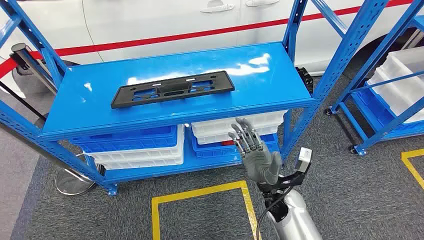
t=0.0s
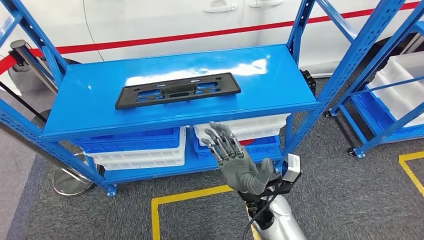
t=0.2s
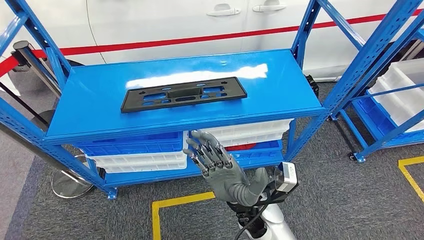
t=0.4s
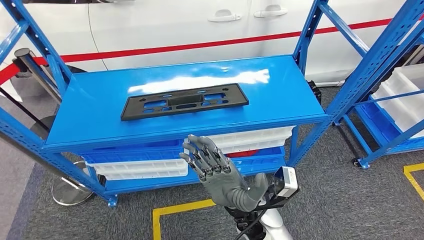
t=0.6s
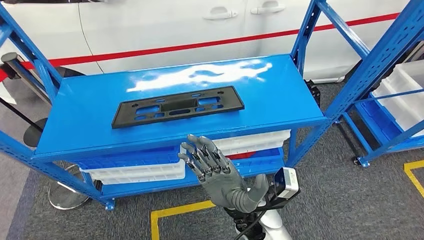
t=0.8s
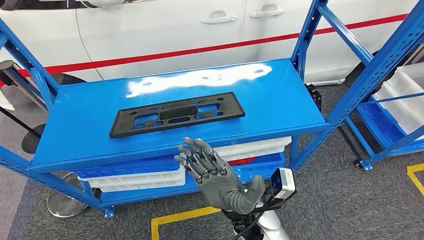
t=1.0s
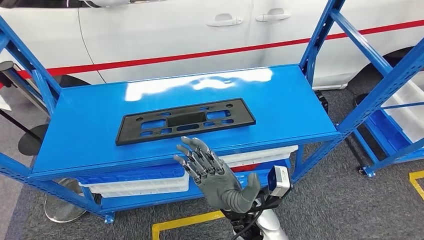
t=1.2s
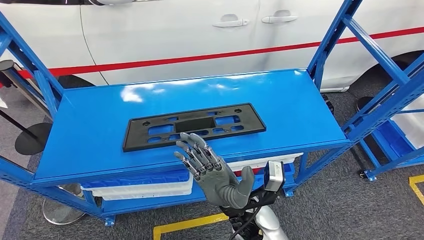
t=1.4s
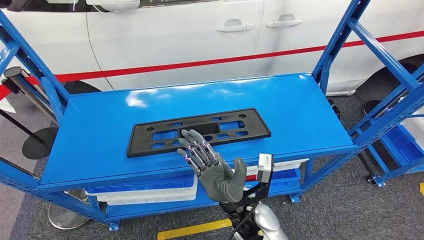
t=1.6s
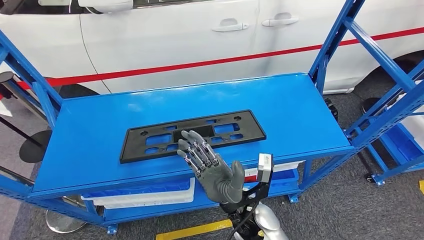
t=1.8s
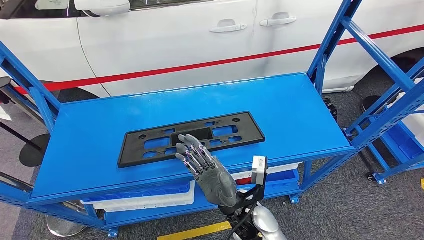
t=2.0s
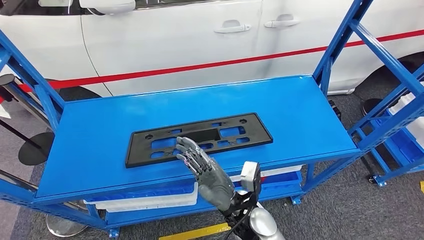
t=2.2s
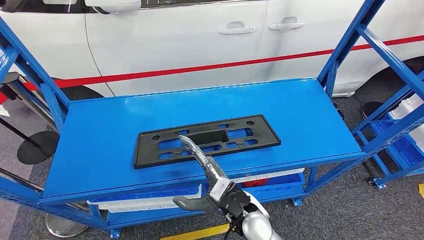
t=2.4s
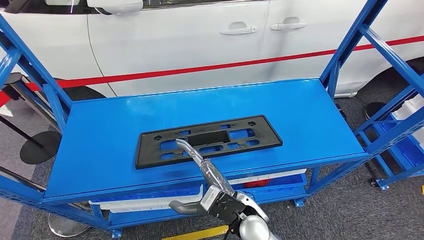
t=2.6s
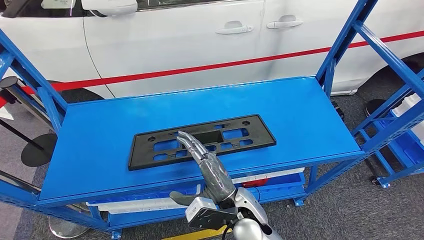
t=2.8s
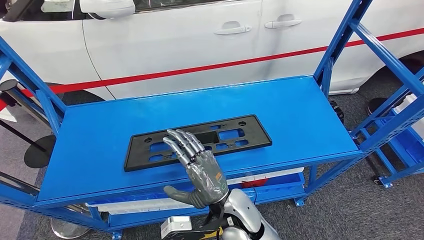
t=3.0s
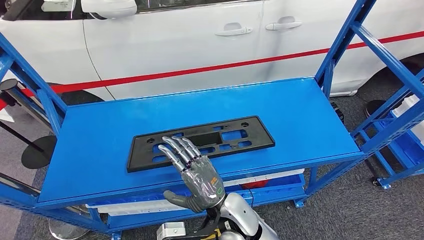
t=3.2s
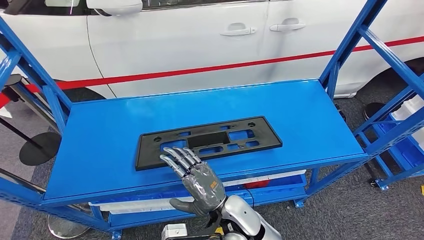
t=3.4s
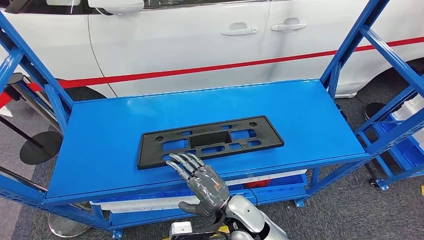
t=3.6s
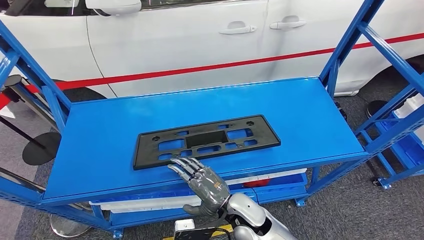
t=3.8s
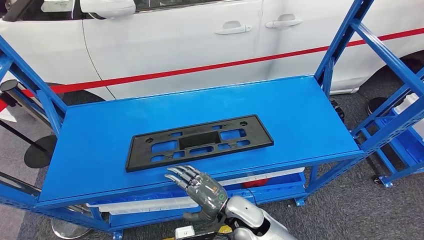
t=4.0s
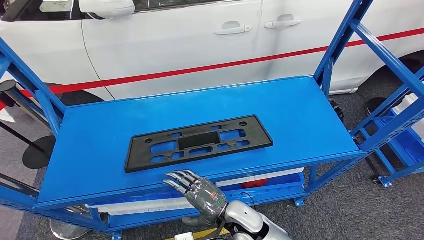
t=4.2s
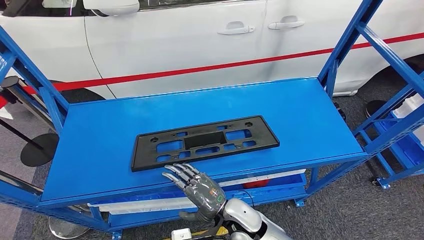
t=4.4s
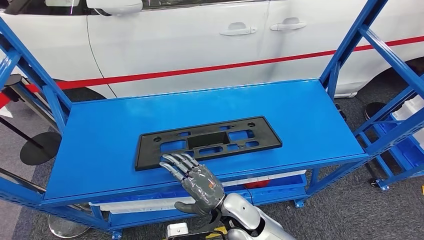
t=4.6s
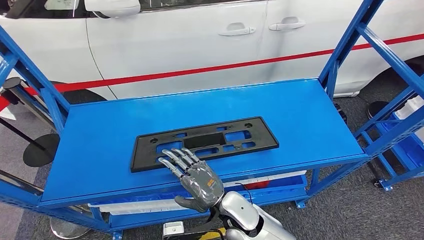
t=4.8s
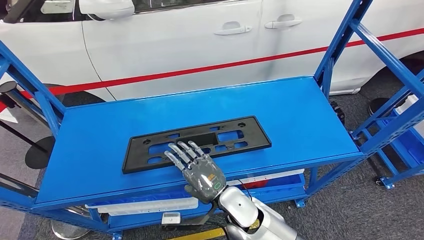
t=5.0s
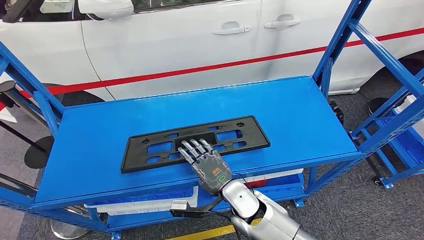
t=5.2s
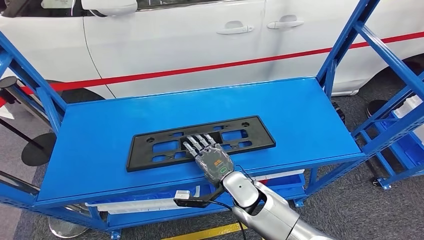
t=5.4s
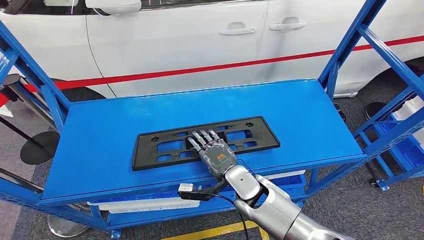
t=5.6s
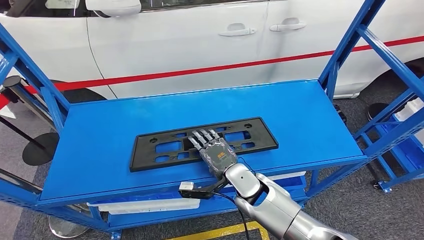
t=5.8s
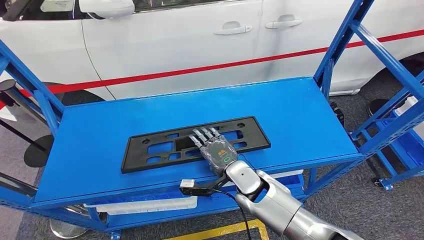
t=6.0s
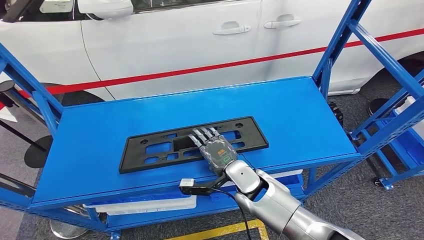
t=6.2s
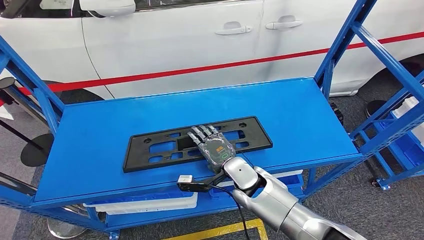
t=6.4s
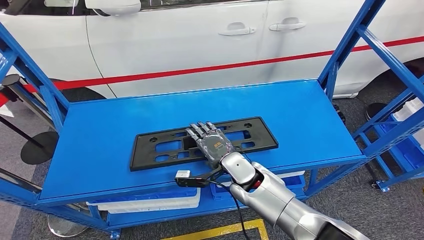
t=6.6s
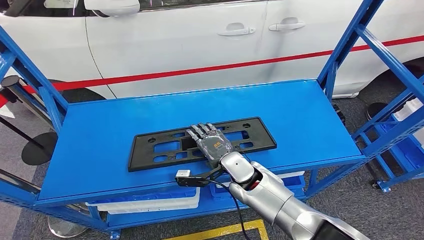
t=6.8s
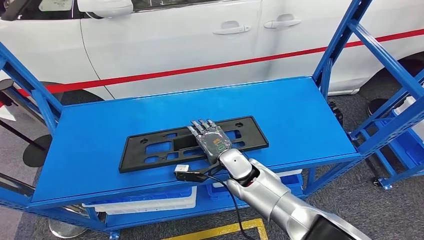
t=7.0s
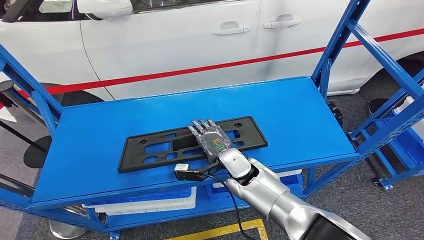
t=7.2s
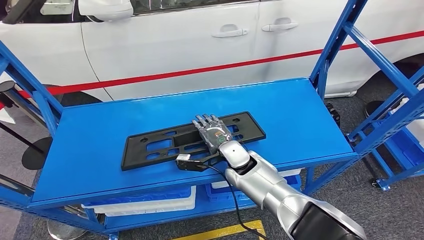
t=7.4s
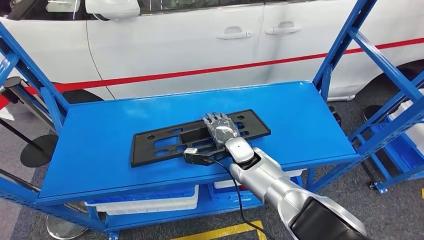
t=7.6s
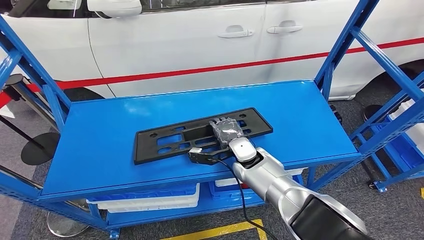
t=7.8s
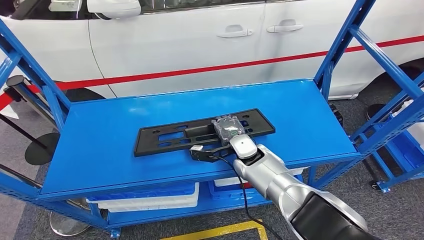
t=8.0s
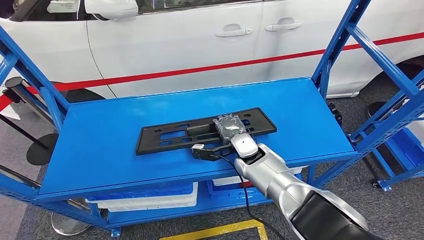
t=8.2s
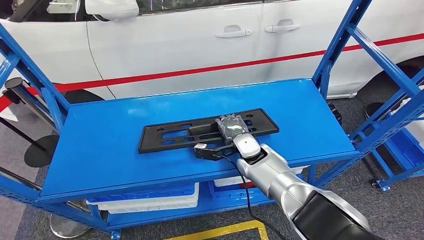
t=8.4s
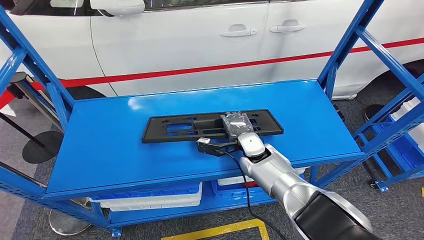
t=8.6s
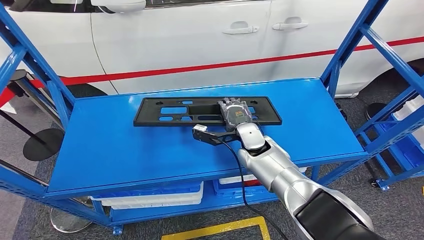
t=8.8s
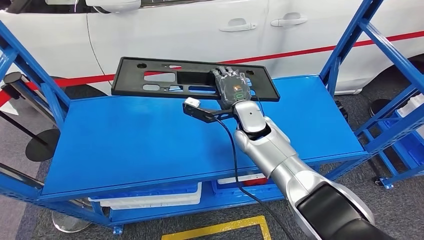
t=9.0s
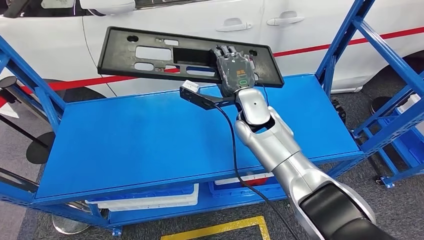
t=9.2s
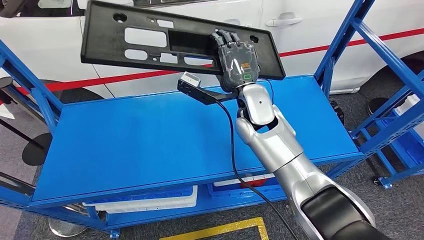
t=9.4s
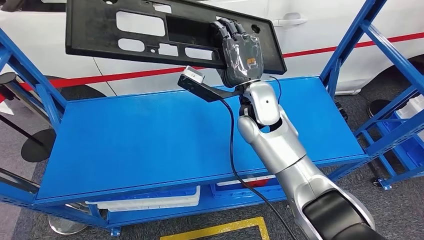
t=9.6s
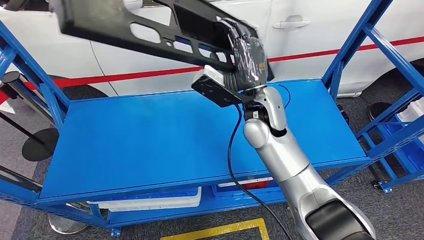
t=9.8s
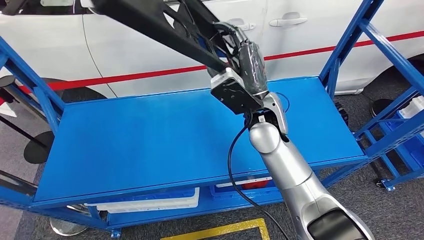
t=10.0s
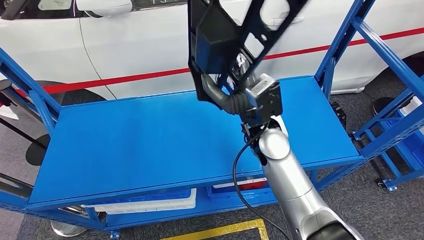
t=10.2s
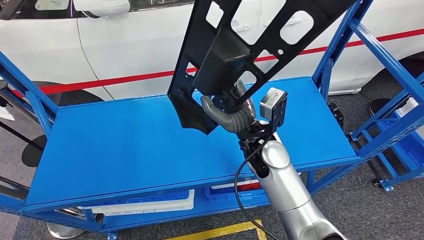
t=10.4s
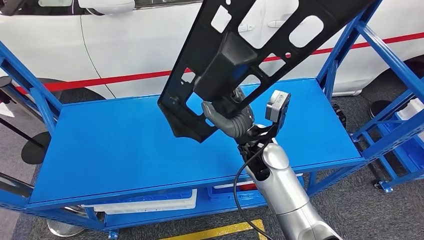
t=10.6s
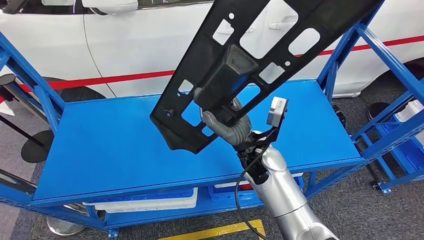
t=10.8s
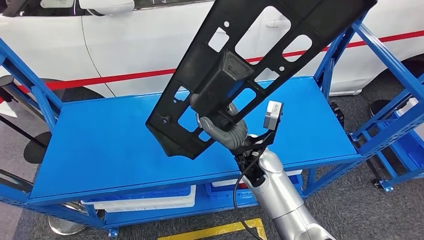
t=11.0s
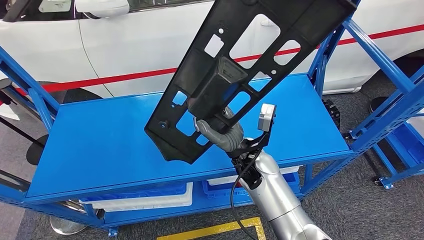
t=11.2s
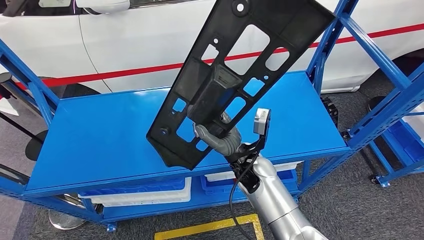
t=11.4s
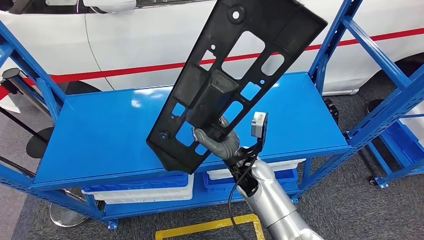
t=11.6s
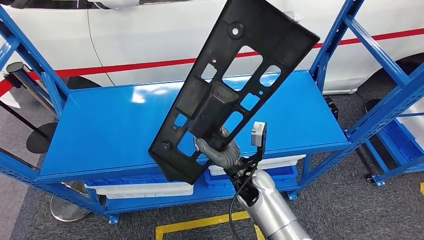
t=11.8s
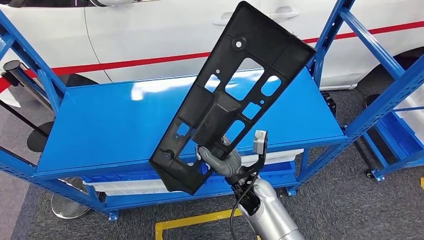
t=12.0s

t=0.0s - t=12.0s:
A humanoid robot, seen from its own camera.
Step, t=0.0s - t=10.0s: Pick up the large material from the shelf.

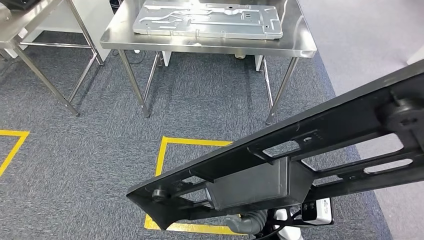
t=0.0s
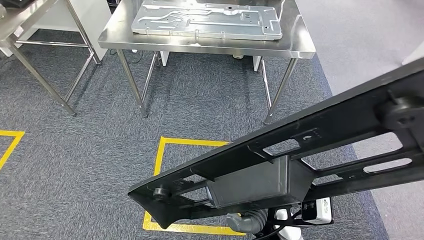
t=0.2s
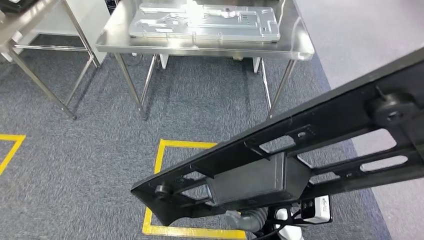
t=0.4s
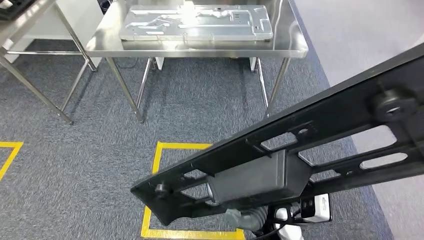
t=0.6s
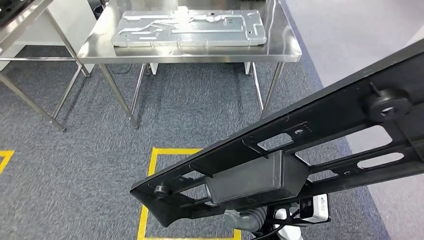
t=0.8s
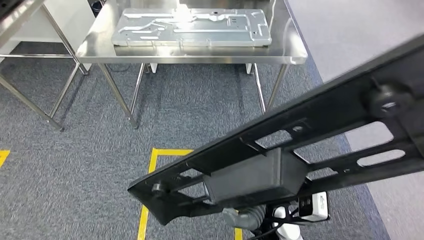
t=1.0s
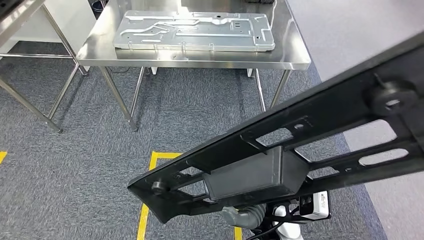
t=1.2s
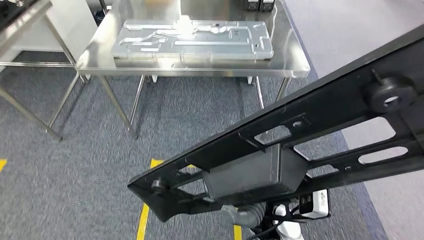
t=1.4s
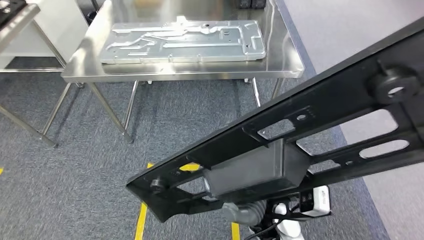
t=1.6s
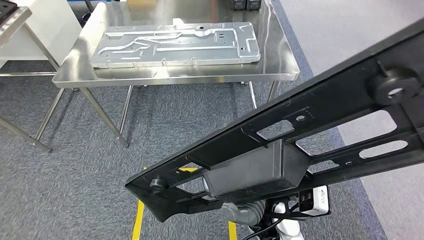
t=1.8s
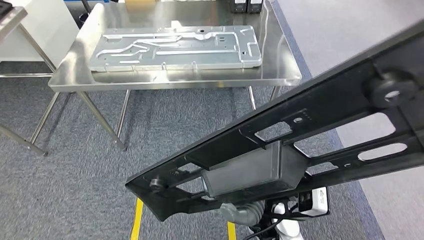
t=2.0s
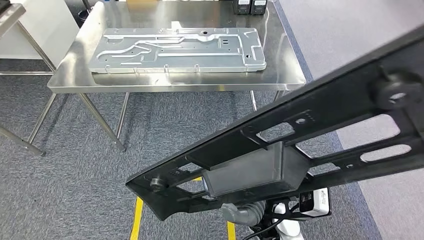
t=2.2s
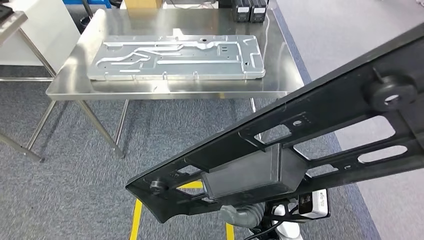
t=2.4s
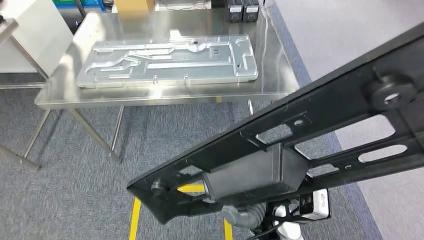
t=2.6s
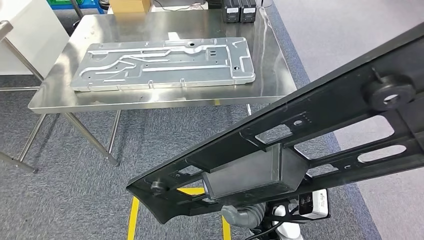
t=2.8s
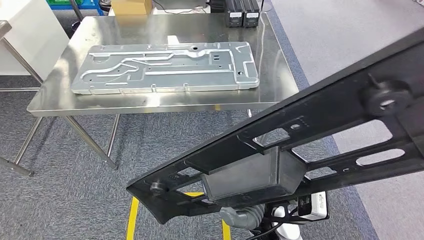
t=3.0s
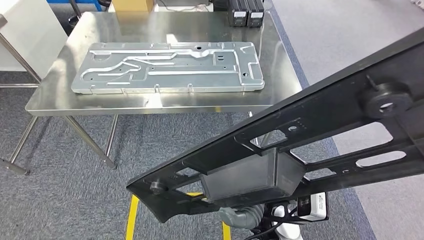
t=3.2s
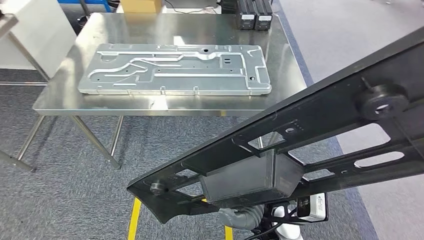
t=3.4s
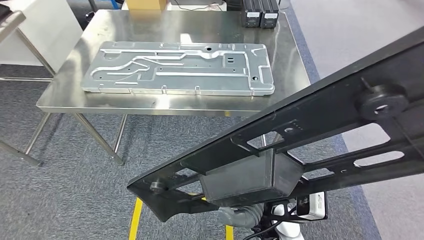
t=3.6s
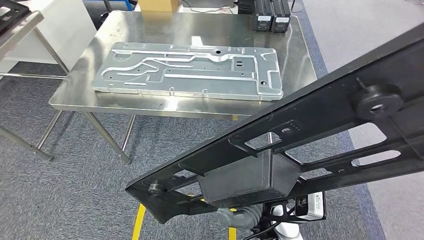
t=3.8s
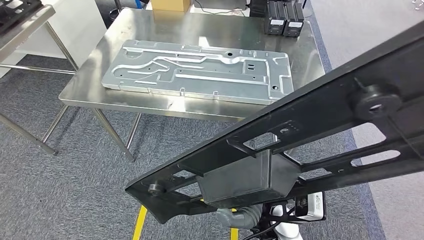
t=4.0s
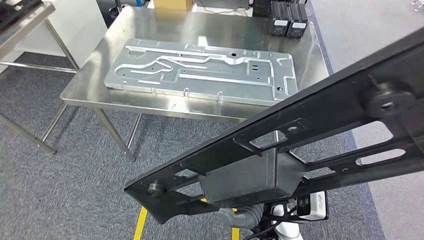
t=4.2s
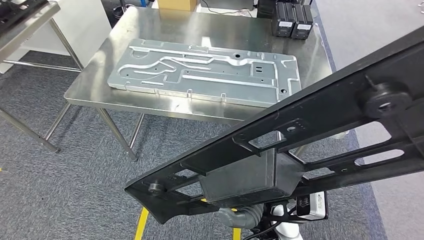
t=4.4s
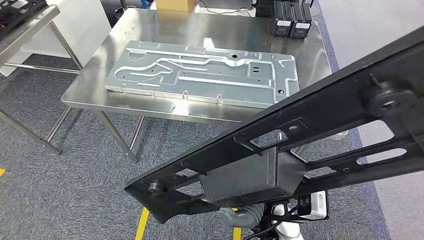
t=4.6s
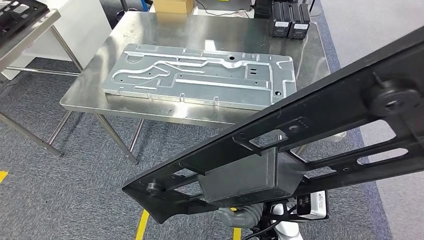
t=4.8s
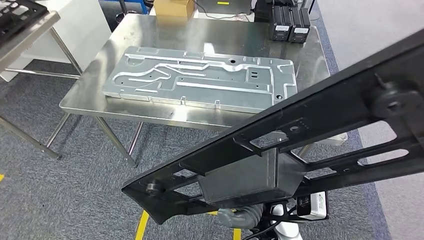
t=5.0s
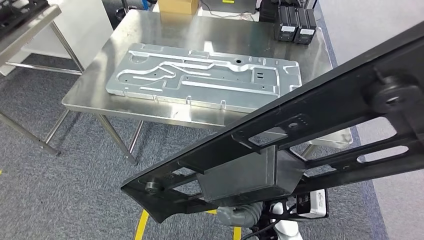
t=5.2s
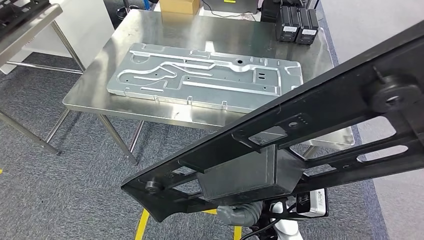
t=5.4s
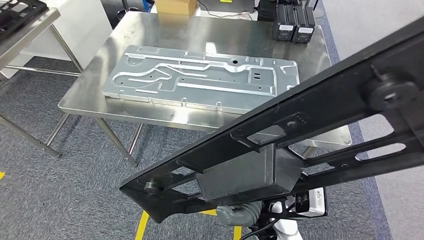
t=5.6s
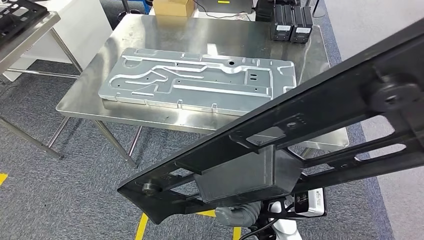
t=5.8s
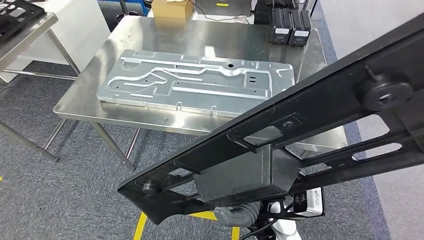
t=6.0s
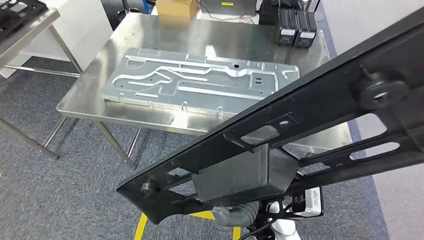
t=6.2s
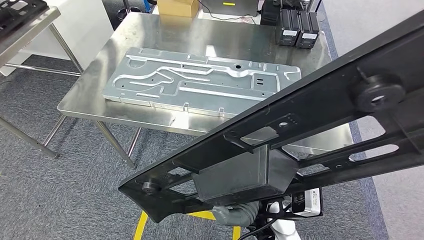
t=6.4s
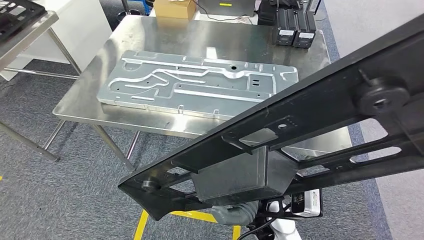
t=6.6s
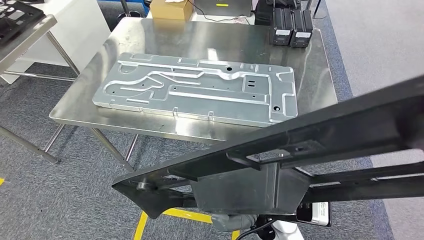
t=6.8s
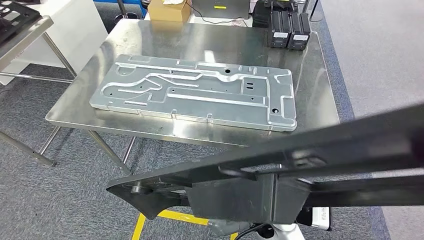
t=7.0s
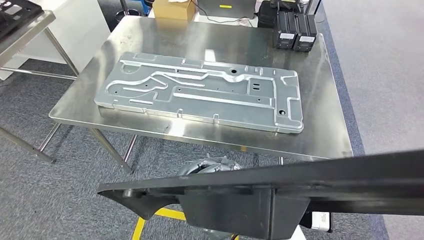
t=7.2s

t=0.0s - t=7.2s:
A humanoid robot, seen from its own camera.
Step, t=0.0s - t=5.6s: Move the large material to the workbench.
